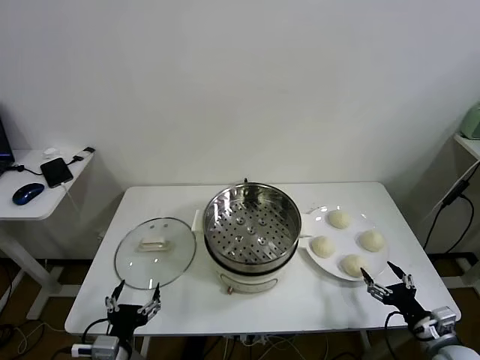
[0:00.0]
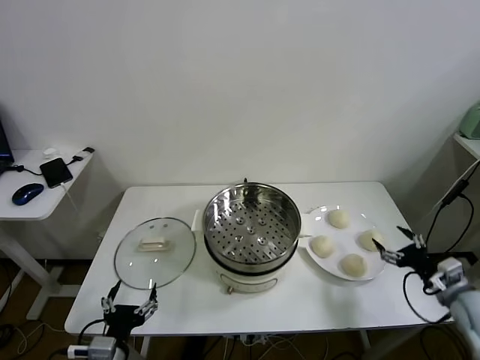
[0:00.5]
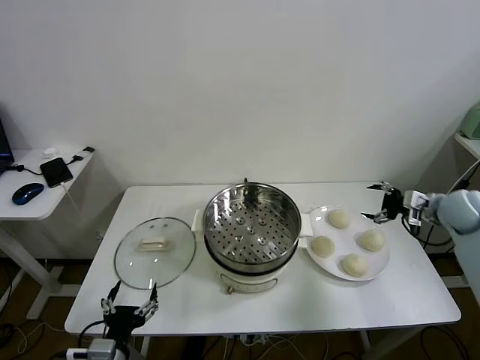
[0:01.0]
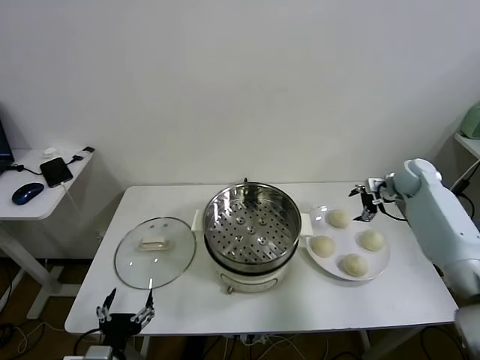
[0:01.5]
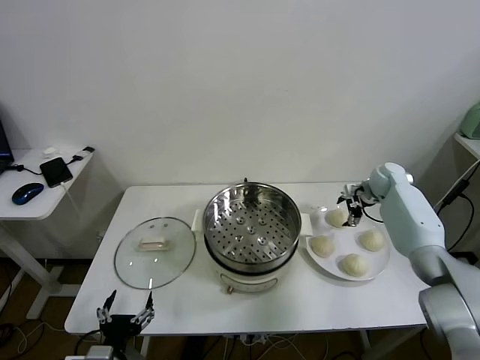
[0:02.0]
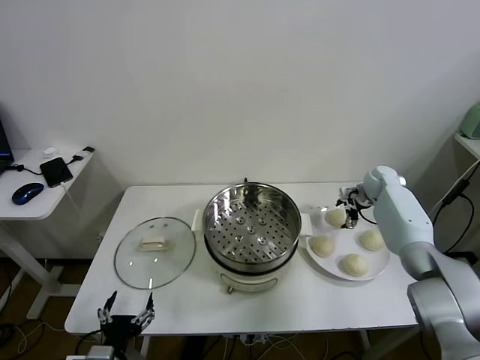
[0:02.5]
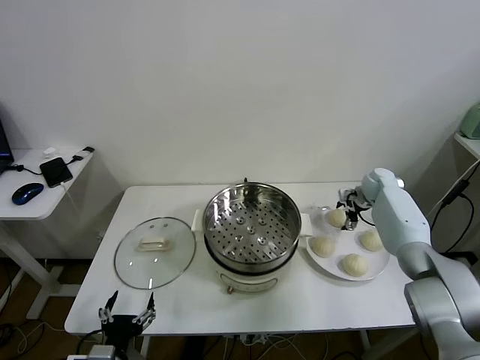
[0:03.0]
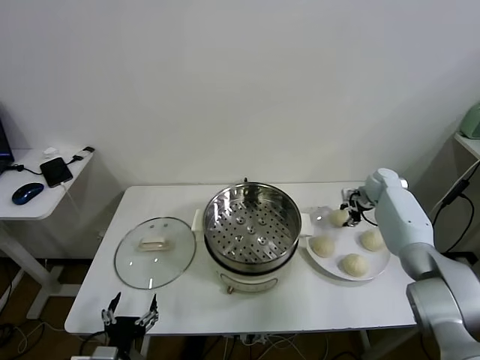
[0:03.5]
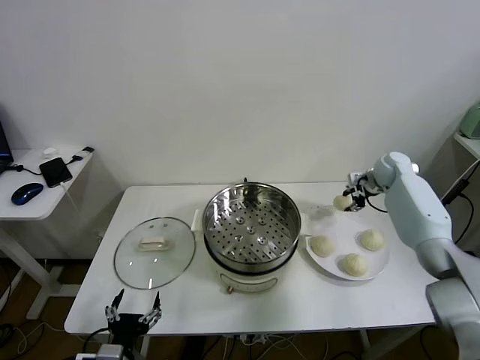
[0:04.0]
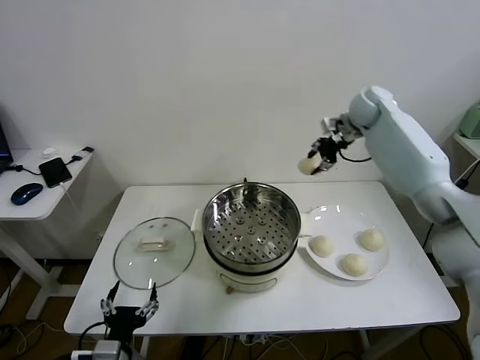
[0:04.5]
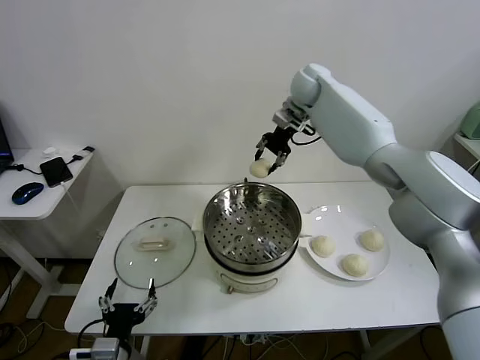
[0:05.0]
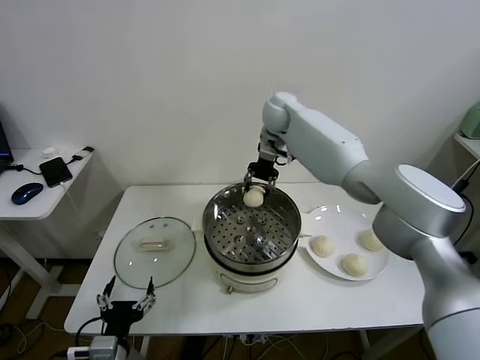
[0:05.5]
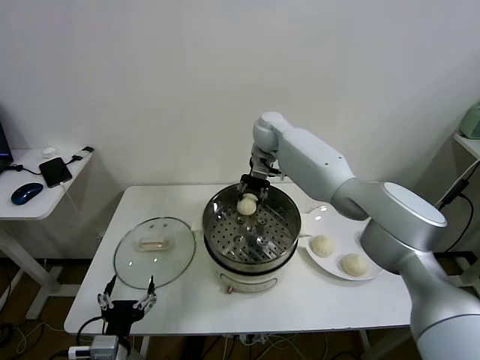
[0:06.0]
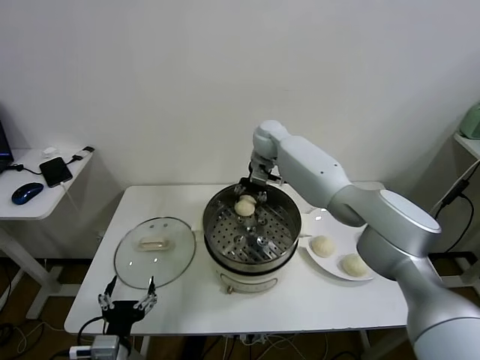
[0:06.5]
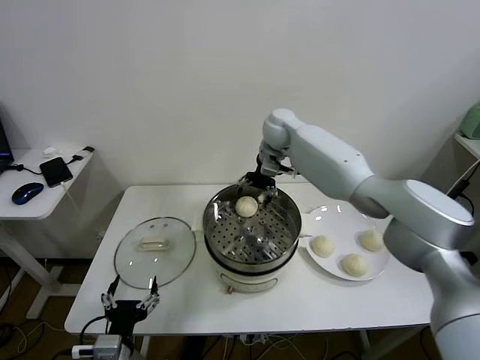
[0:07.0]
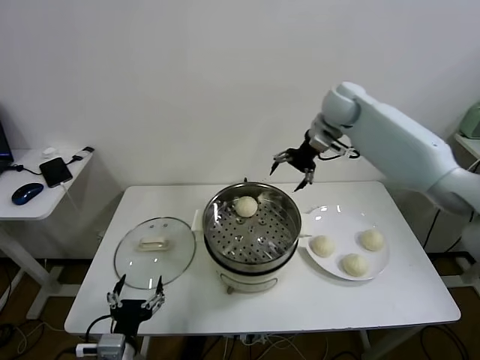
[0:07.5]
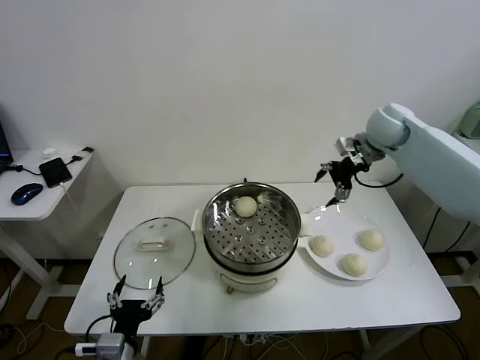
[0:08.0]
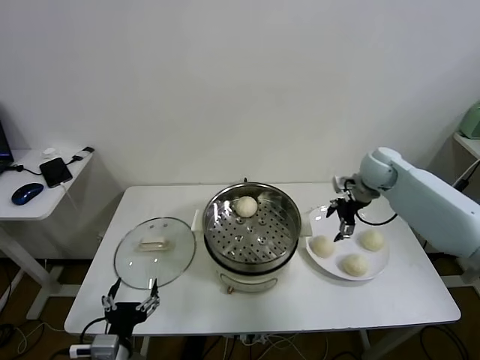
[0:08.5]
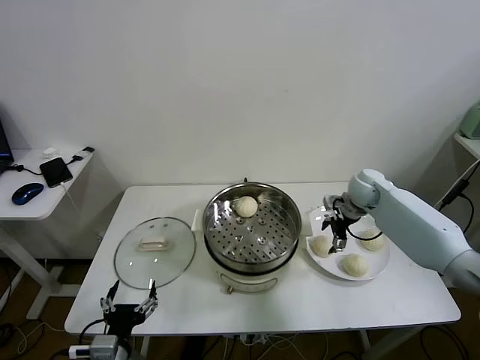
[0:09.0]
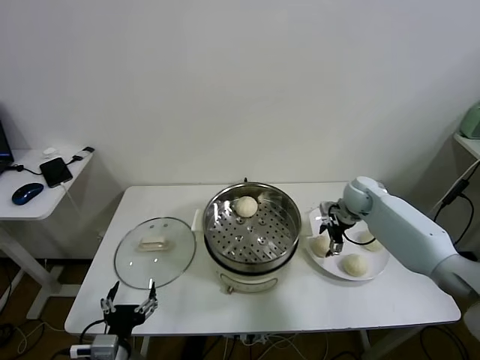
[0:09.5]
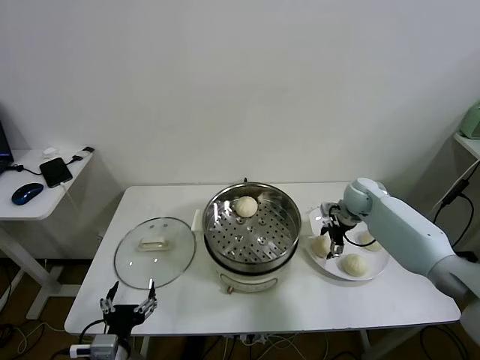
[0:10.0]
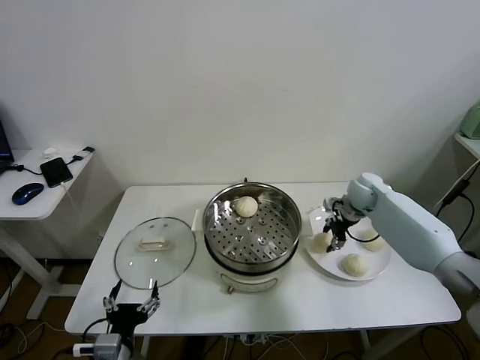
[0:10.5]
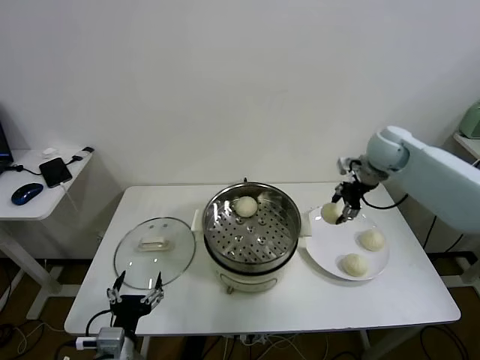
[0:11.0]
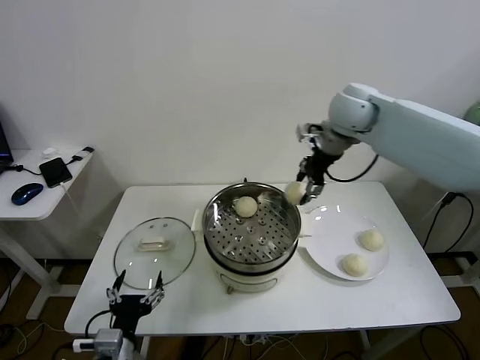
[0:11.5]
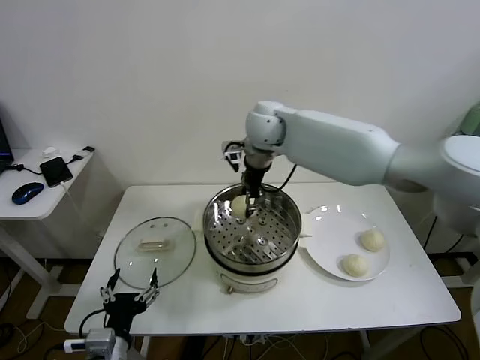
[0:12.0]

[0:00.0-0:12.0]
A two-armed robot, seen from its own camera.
Task of the whole recording: take steamed baozi put them in steamer.
Step, 0.0 to 3.0 s: Grasp the baozi in the plate with right gripper.
Step, 4.0 to 6.5 s: Place the baozi on the steamer with right gripper.
Step, 7.0 to 10.0 s: Grasp the baozi in the plate with right gripper.
2.0 to 4.0 s: The right gripper shifts about 10 cm upward, and closes.
4.0 to 6.0 s: The right gripper goes roughly 35 cm to the left.
6.0 to 8.0 s: The right gripper is displaced to the right by about 25 cm, and opens its fingers.
8.0 to 10.0 s: The right gripper is displaced downward by roughly 20 cm.
10.0 to 12.0 s: The right gripper moves to the left and upward, about 35 cm, and closes its fingers.

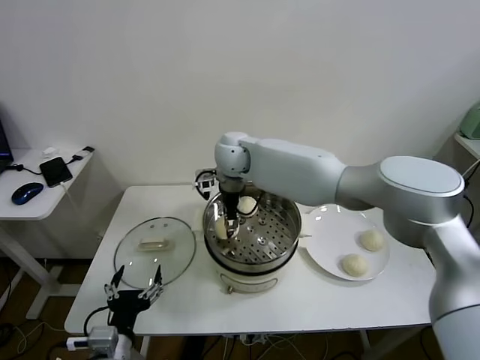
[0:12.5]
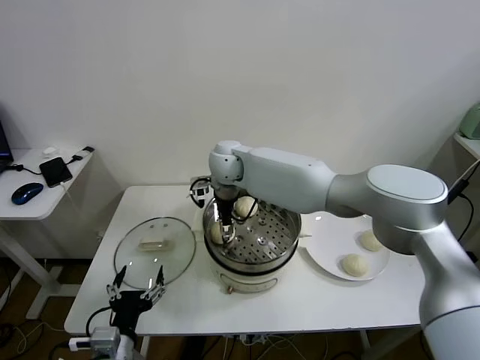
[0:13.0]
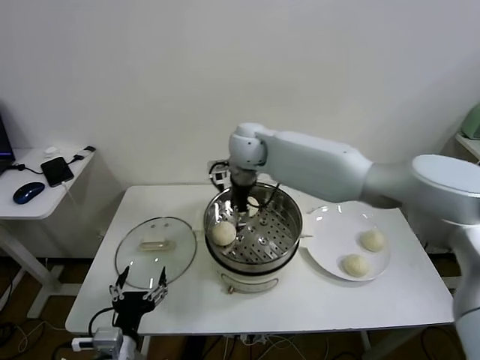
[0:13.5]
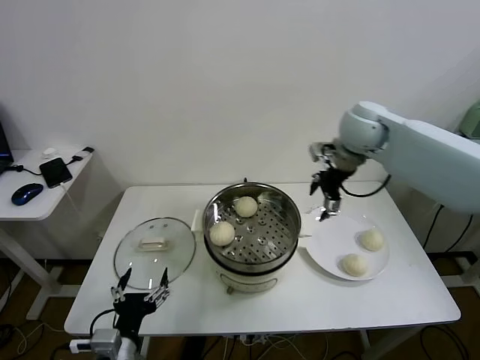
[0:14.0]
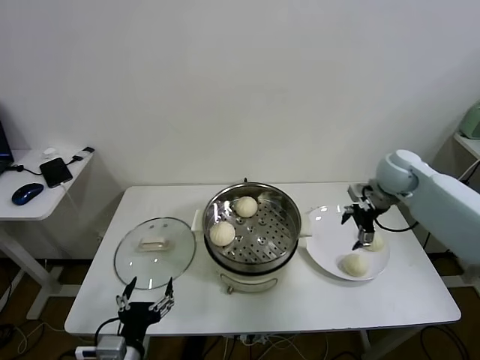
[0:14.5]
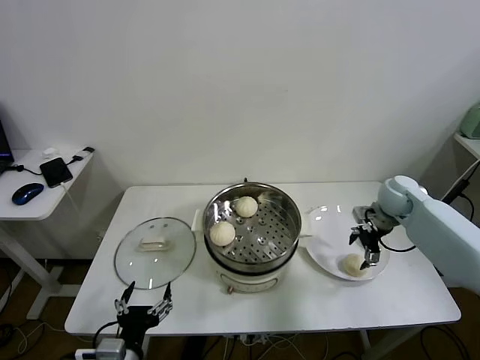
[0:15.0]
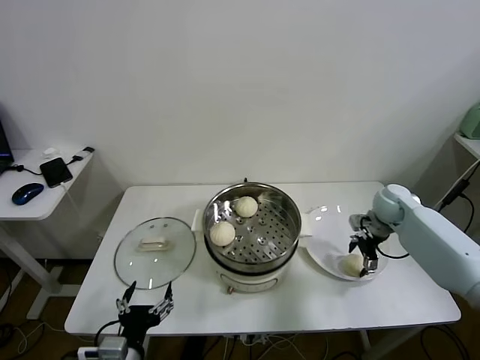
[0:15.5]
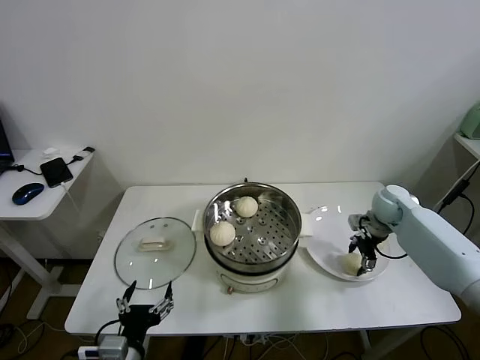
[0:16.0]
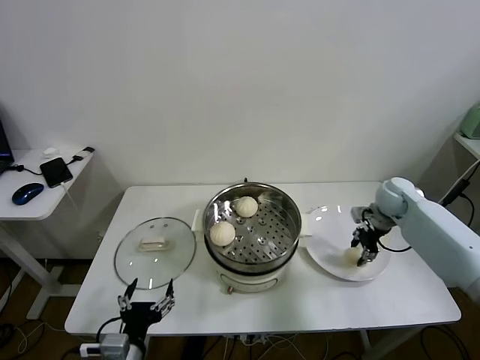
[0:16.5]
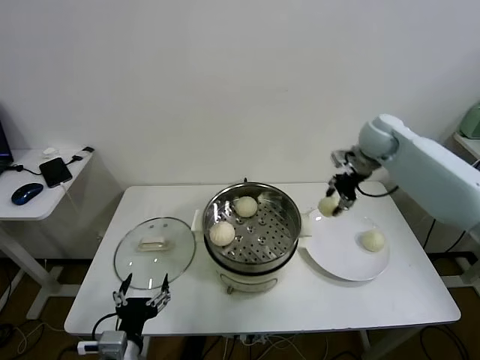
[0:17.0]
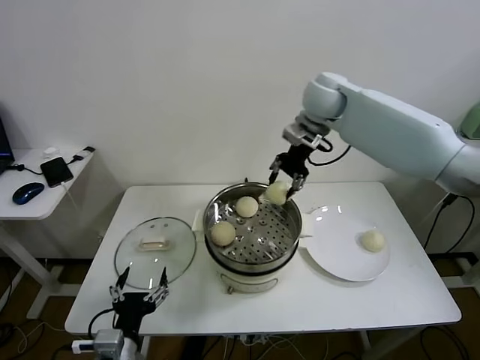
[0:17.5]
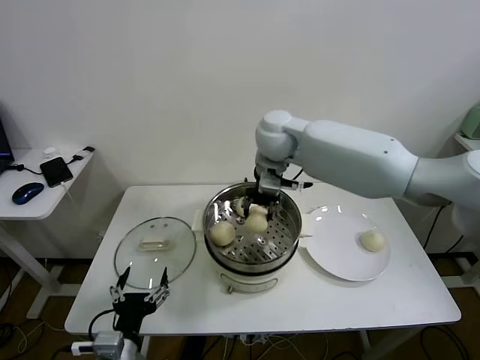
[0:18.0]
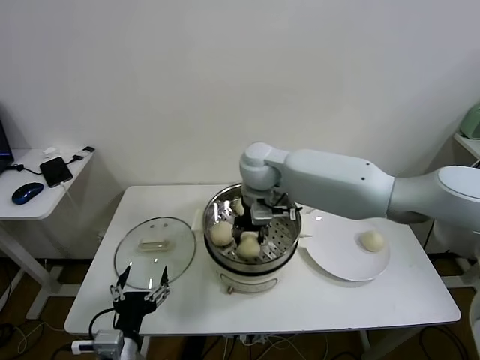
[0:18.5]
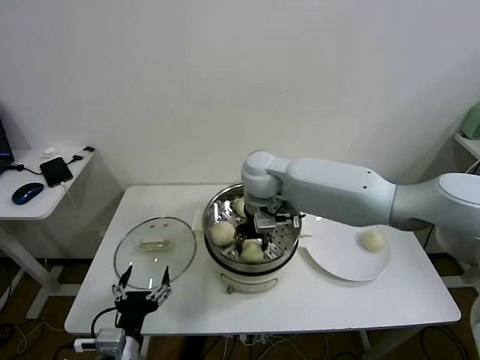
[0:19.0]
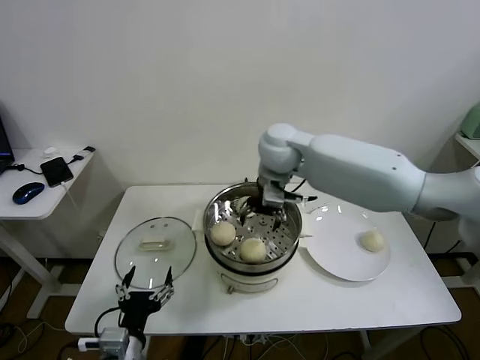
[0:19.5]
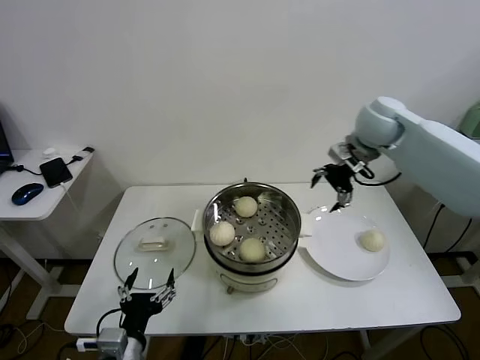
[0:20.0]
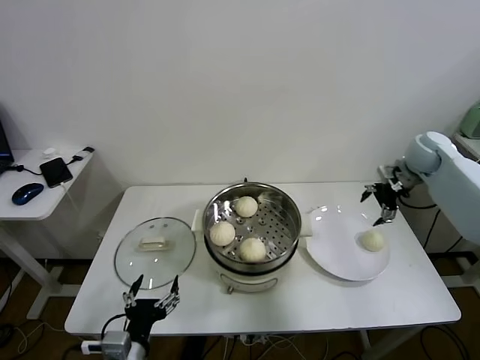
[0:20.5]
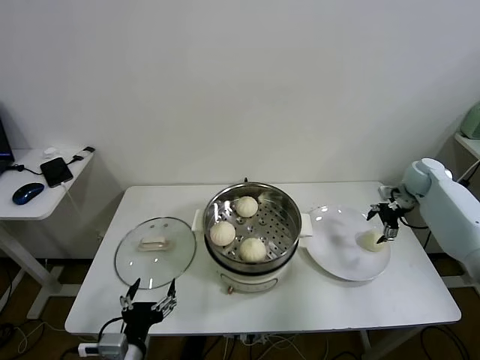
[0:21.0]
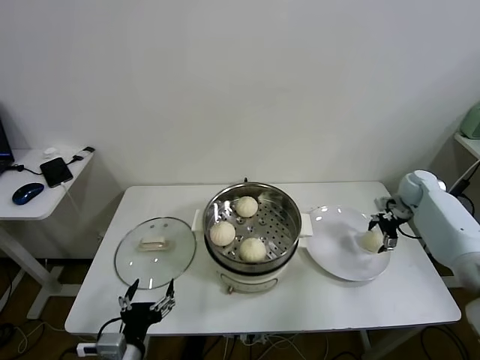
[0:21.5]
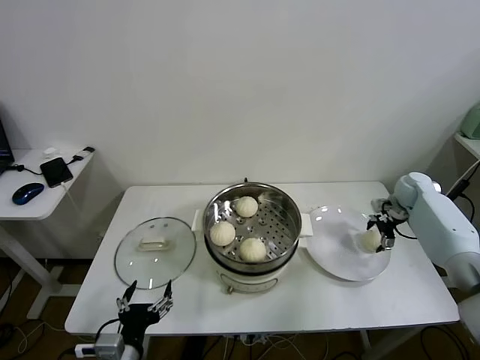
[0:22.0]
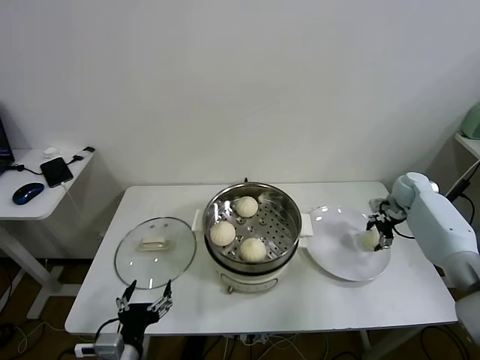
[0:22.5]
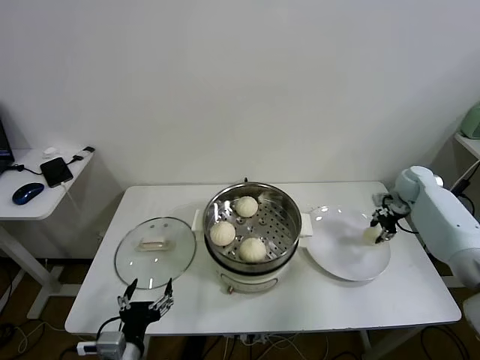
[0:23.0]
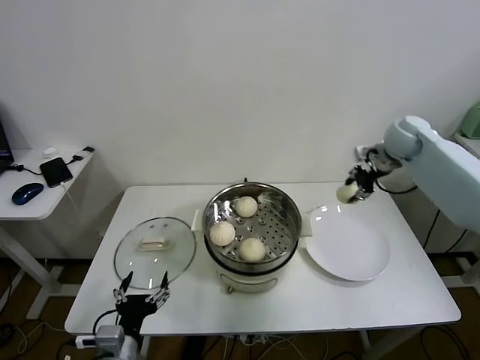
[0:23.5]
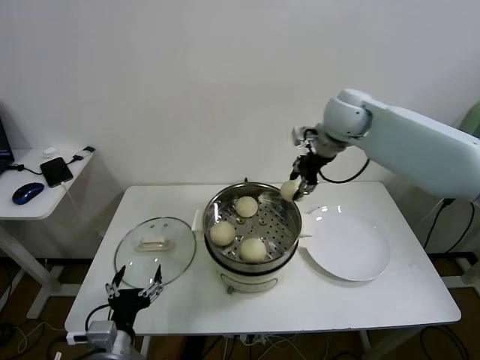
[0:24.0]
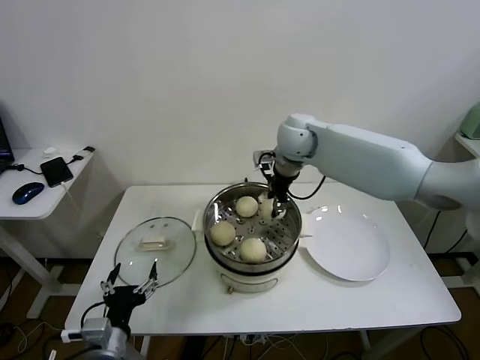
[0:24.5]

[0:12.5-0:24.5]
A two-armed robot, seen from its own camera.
Task of the whole recording: take steamed baozi put them in steamer.
Step, 13.5 to 16.0 s: Grasp the baozi in the plate with right gripper.
Step, 16.5 to 19.0 s: Place the baozi on the steamer with right gripper.
Step, 19.5 to 22.5 s: Grasp the baozi in the plate with right gripper.
12.5 to 14.5 s: The right gripper is displaced to the right by some 40 cm, and opens up.
14.5 to 16.5 s: The right gripper heads downward, covering approximately 10 cm, and closes.
16.5 to 18.5 s: The right gripper goes some 35 cm to the left.
18.5 to 20.5 s: The right gripper shifts about 40 cm to the right, and opens up.
20.5 to 22.5 s: The right gripper goes approximately 15 cm downward.
22.5 to 24.5 s: The right gripper goes approximately 40 cm to the left and upward, and closes up.

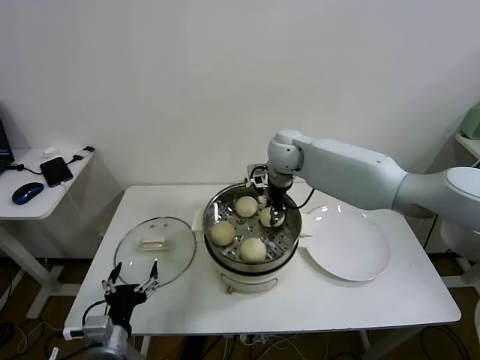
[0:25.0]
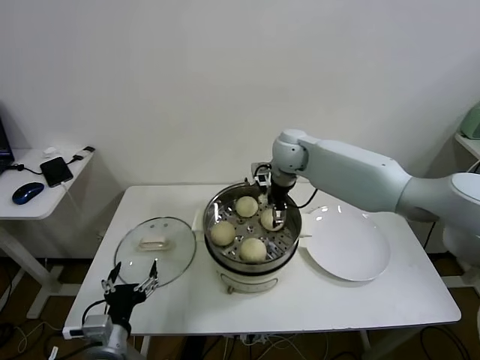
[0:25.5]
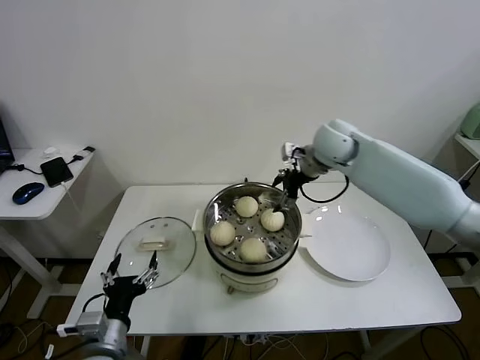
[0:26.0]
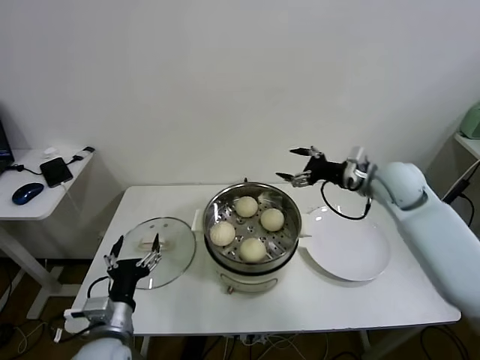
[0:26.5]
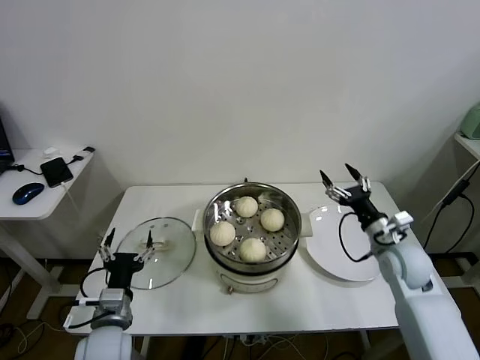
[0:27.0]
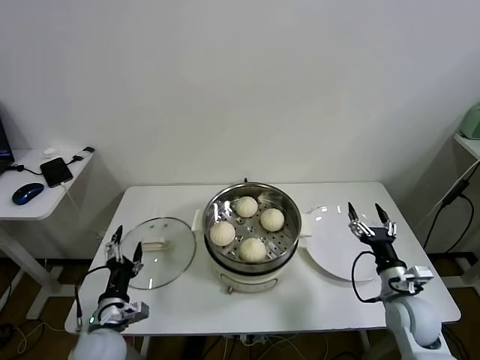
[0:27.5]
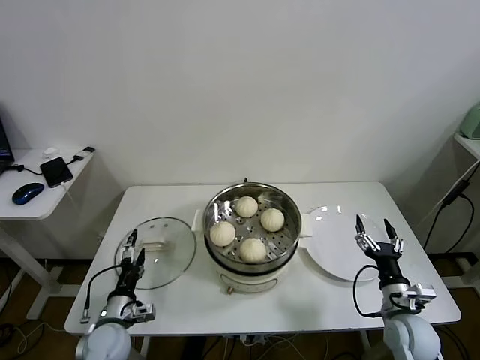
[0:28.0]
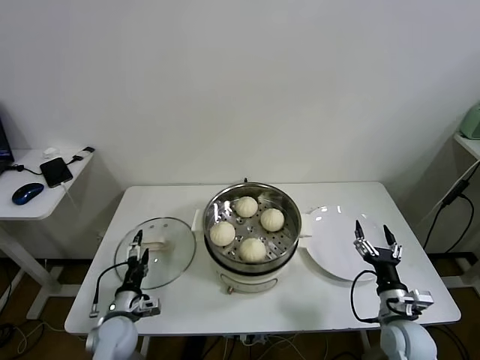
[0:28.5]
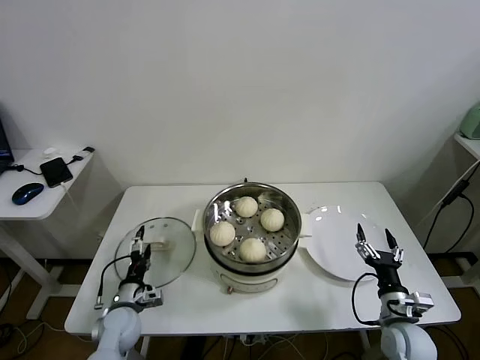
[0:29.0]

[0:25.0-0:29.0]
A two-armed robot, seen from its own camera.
Task of the whole recording: take steamed baozi put them in steamer.
25.0 to 27.0 s: The left gripper travels forward by some 5 cm; the right gripper goes approximately 35 cm to the right, backward and downward, and opens its fingers.
27.0 to 29.0 s: The right gripper is displaced backward and downward by about 15 cm. The left gripper goes approximately 15 cm downward and forward.
